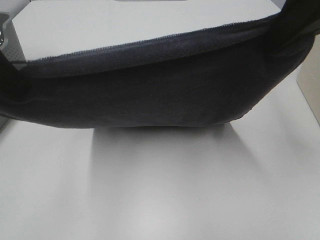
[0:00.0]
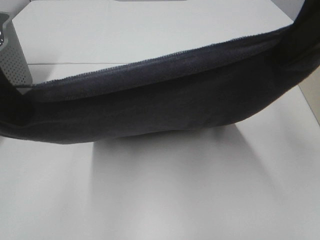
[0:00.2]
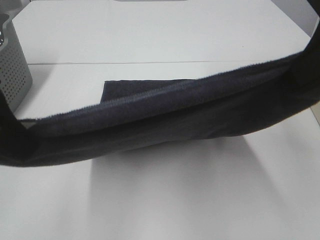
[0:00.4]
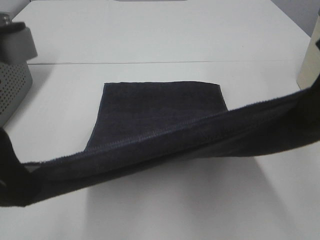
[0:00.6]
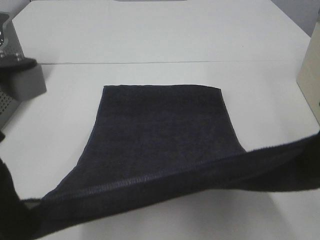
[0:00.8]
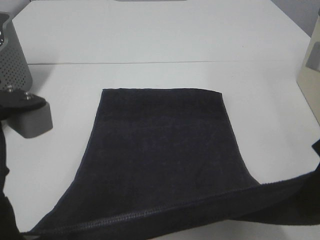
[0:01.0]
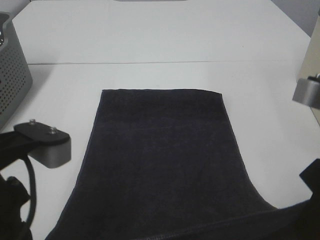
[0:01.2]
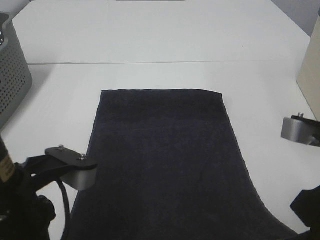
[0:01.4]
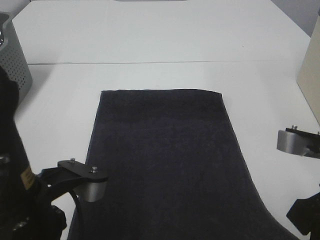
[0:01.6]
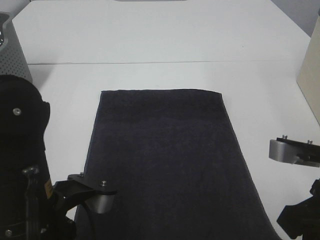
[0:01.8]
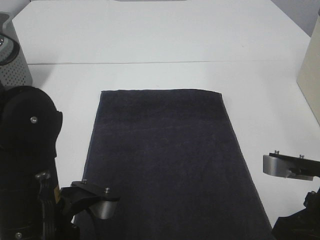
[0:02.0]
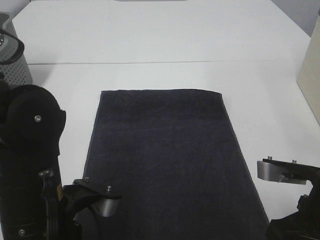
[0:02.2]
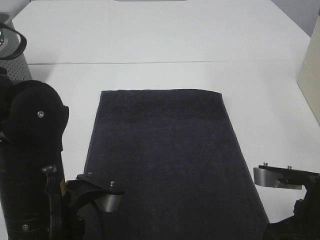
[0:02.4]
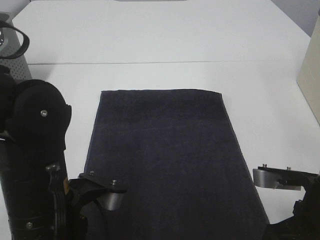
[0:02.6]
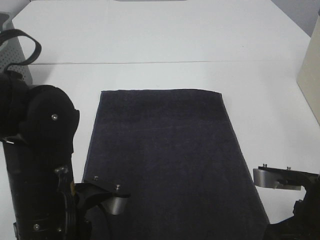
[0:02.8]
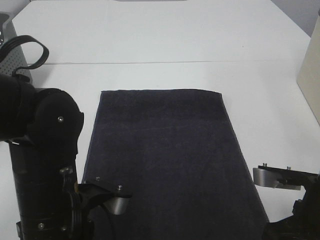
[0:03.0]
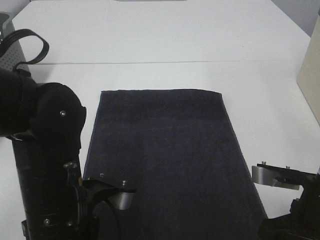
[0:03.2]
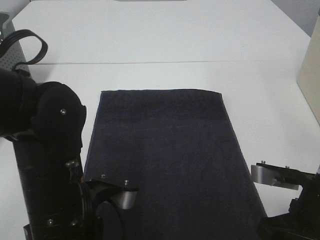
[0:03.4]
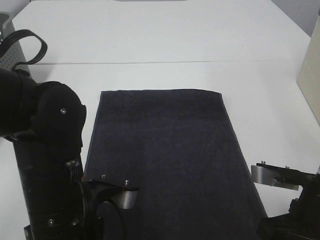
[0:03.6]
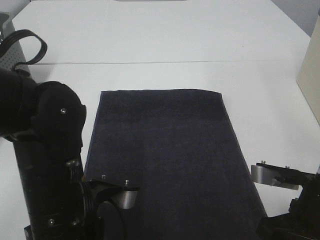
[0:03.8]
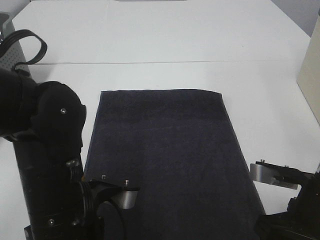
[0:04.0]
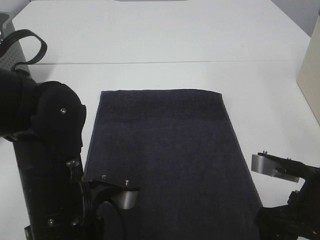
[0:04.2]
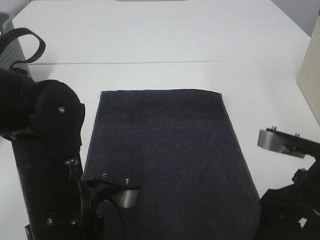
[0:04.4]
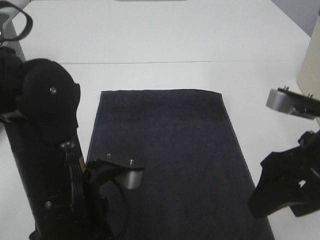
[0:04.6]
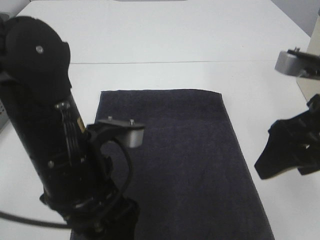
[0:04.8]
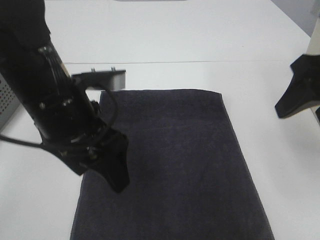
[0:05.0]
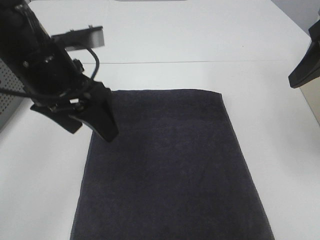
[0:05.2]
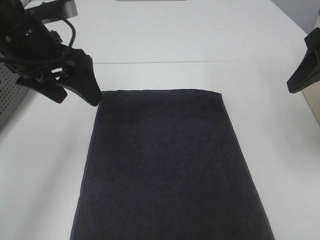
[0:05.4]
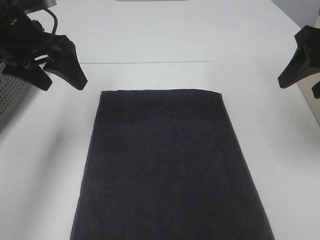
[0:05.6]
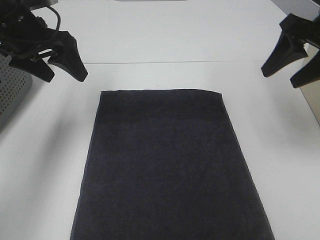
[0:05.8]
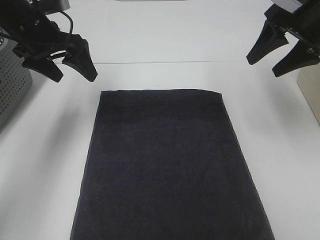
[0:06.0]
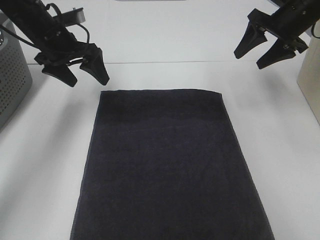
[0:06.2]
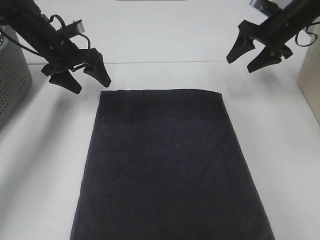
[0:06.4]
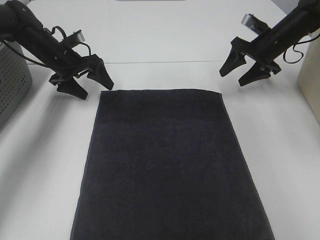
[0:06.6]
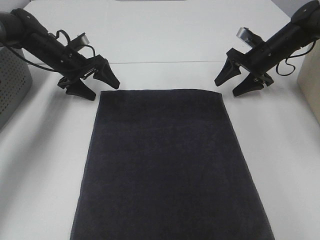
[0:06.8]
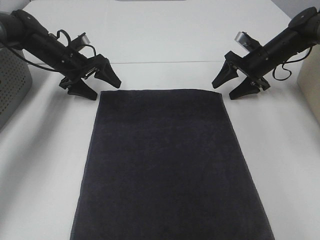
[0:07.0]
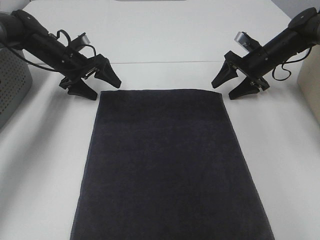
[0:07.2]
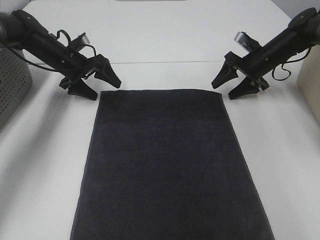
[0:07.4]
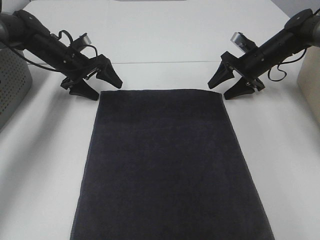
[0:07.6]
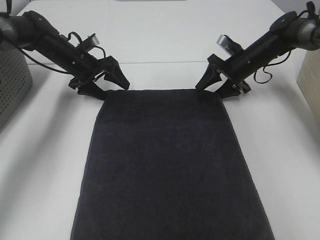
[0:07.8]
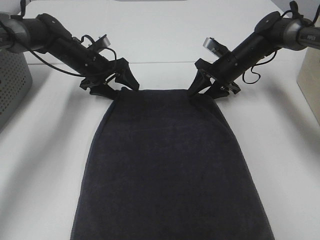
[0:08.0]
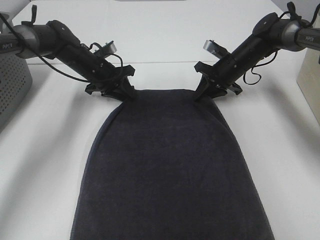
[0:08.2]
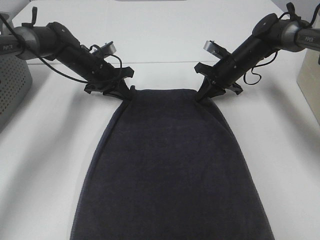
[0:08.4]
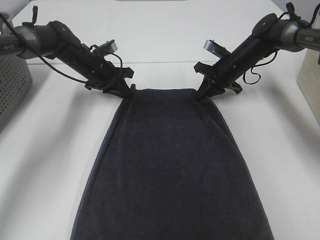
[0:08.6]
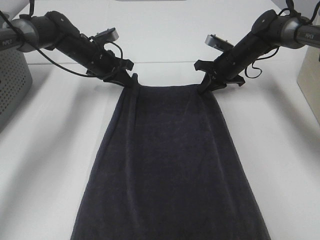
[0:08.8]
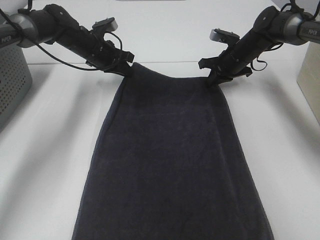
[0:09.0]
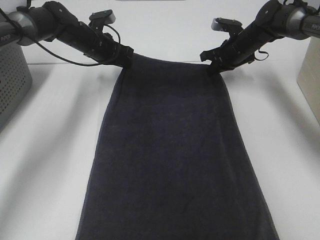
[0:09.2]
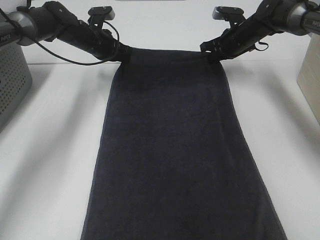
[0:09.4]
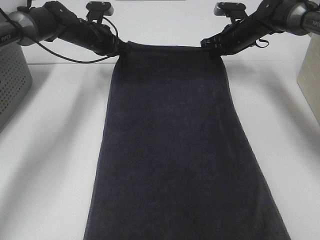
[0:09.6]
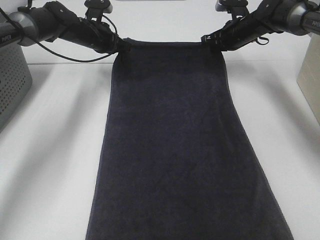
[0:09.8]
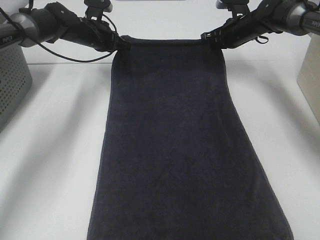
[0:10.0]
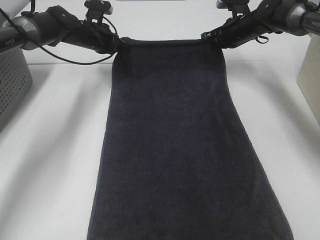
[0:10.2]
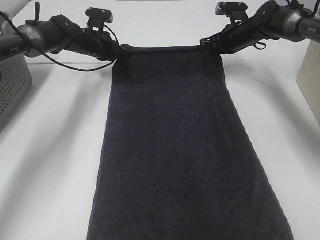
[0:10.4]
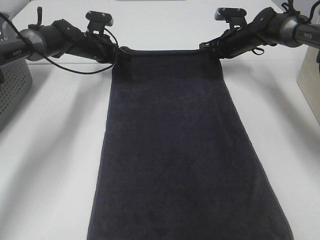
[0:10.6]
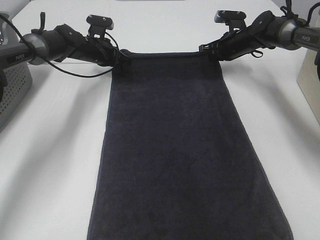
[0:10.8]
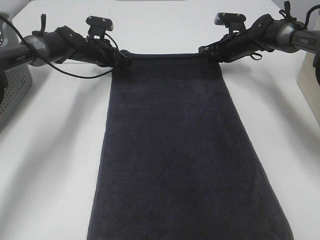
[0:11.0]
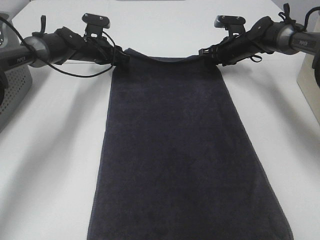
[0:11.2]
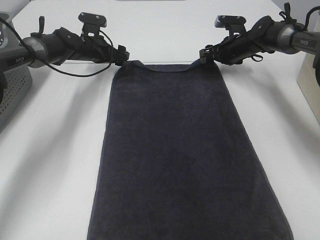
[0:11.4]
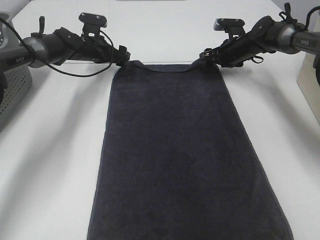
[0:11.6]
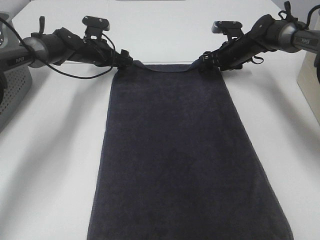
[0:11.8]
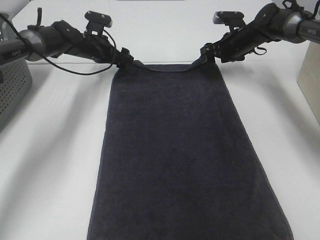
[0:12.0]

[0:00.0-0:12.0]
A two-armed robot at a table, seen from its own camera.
Task of the whole recording: Remove the towel and place it.
Step, 0:00.0 to 0:06.0: Left hand:adjust the gray towel.
Step, 0:00.0 to 0:06.0: Right hand:adjust the gray towel.
0:00.0 to 0:01.6: The right gripper is displaced downward and backward by approximately 20 cm; the left gripper moves downward, roughly 15 cm.
0:01.6 to 0:03.0: The right gripper moves downward, about 5 cm. The left gripper shifts by approximately 5 cm.
0:03.0 to 0:04.4: The left gripper opens up, while the right gripper opens.
0:04.4 to 0:06.0: The right gripper shifts some 25 cm forward. The left gripper is displaced forward and to the left by roughly 30 cm.
0:06.0 to 0:07.6: The two grippers go approximately 20 cm downward and forward.
0:07.6 to 0:09.0: The right gripper changes place by roughly 5 cm, and closes its fingers. The left gripper shifts some 5 cm to the right, and closes its fingers.
0:10.4 to 0:12.0: The left gripper opens. Meanwhile the right gripper opens its fingers.

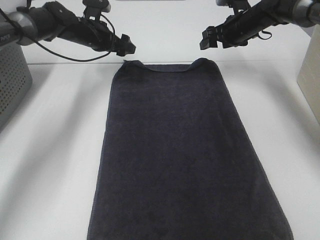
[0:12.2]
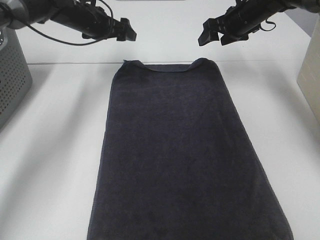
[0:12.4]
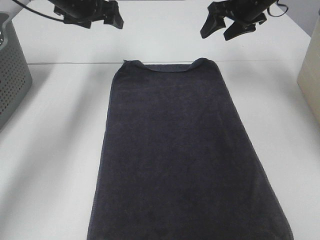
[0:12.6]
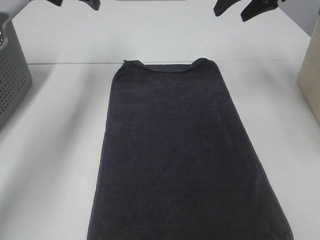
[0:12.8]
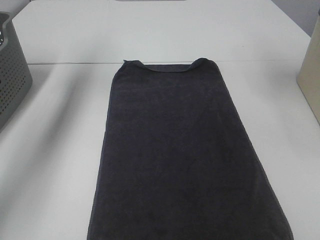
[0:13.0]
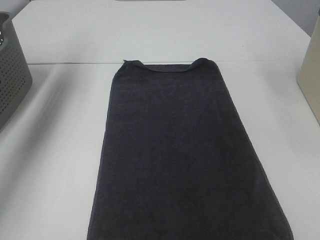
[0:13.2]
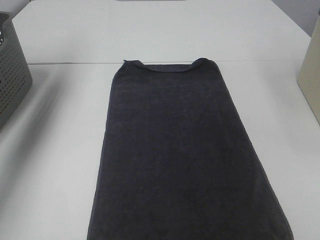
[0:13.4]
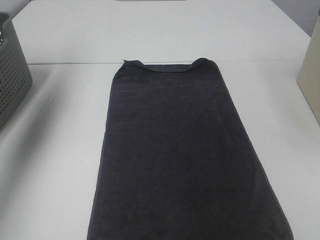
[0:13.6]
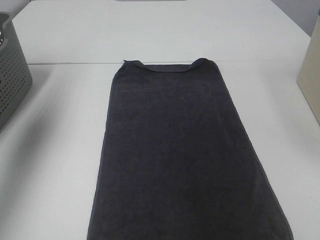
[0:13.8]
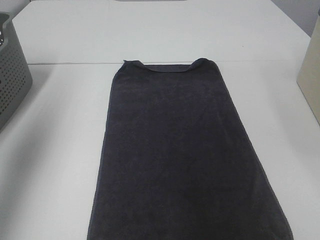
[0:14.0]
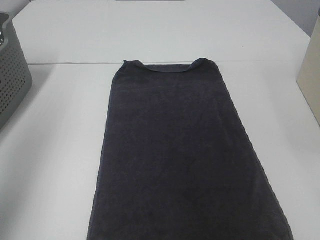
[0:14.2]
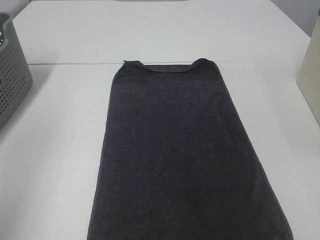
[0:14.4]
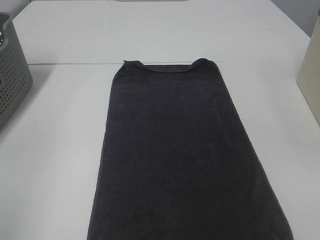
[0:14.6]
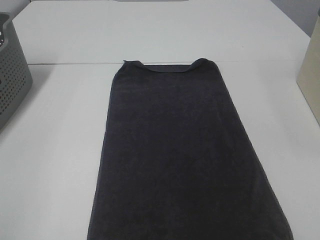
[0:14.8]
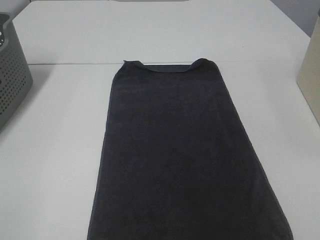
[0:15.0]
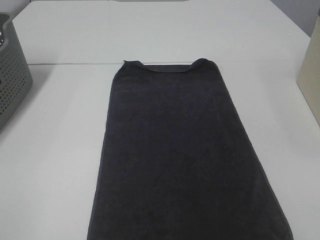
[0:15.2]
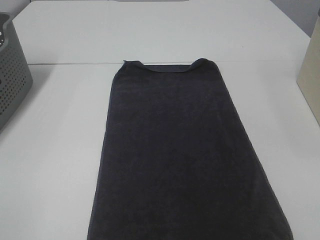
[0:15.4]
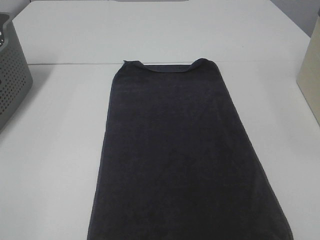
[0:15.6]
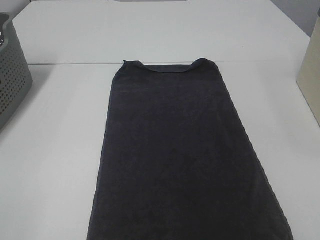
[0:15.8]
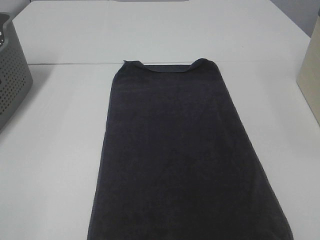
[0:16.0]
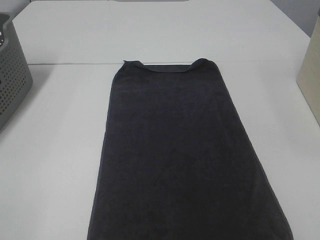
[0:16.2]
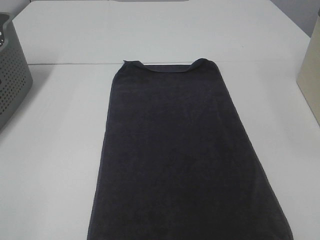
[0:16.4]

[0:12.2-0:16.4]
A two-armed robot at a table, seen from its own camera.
Task of the whole recording: Remove the towel and place it.
0:12.2 to 0:13.6: The left gripper travels upward, backward and to the left by about 35 cm, while the right gripper is displaced upward and backward by roughly 35 cm.
0:13.6 to 0:15.0: The left gripper is displaced backward by approximately 40 cm.

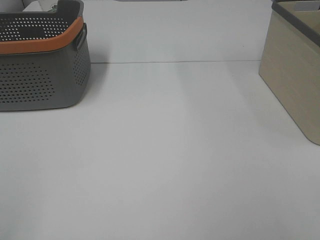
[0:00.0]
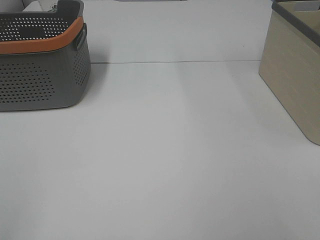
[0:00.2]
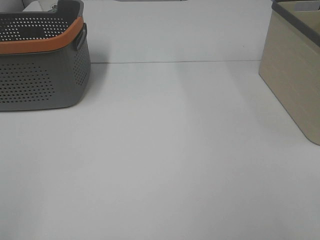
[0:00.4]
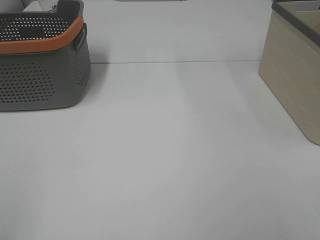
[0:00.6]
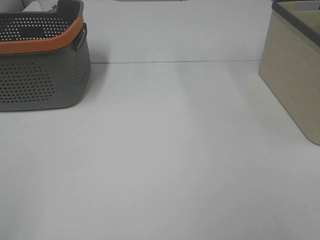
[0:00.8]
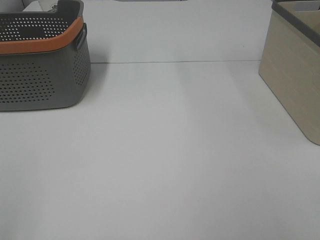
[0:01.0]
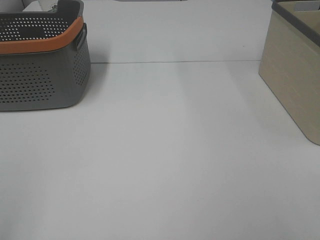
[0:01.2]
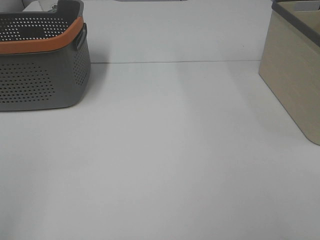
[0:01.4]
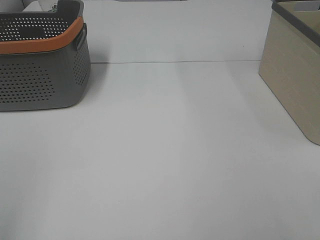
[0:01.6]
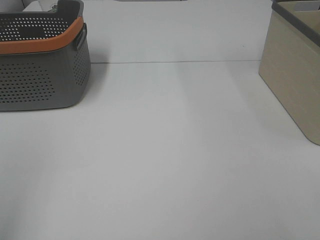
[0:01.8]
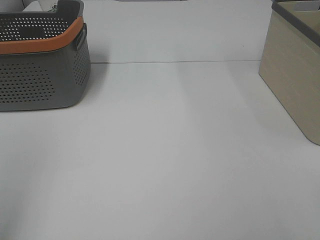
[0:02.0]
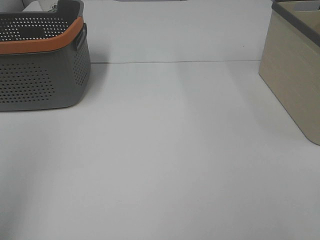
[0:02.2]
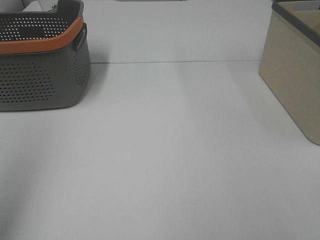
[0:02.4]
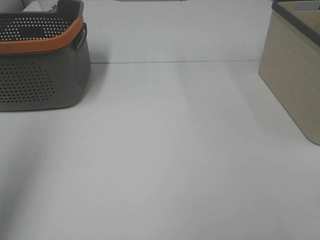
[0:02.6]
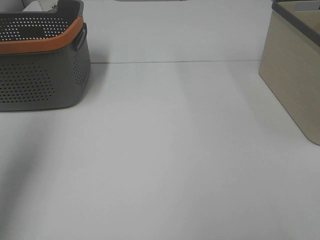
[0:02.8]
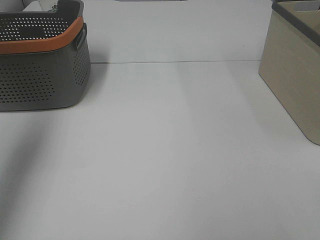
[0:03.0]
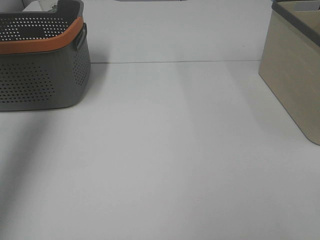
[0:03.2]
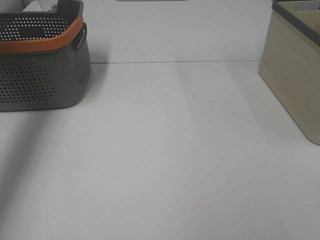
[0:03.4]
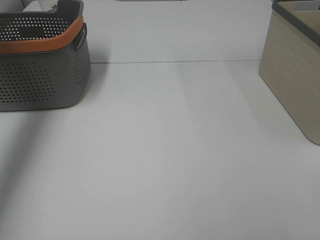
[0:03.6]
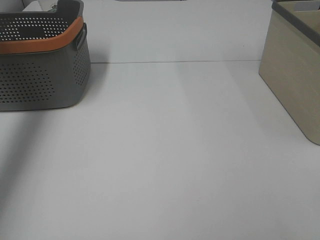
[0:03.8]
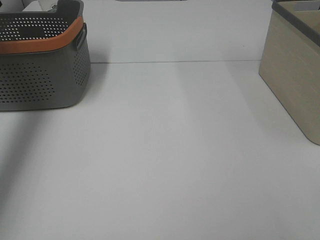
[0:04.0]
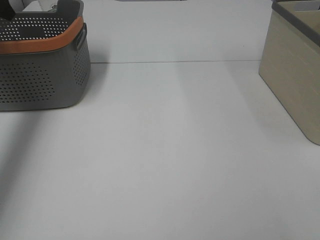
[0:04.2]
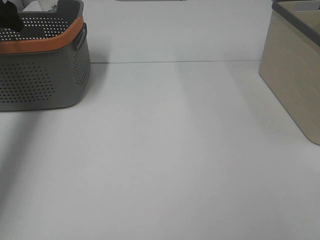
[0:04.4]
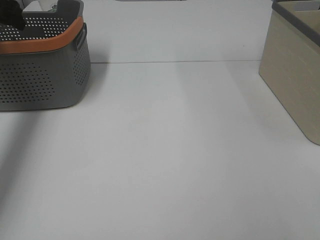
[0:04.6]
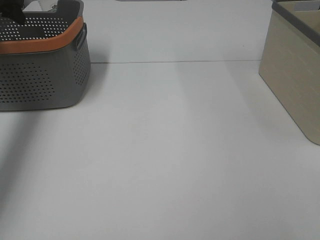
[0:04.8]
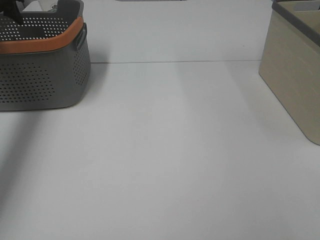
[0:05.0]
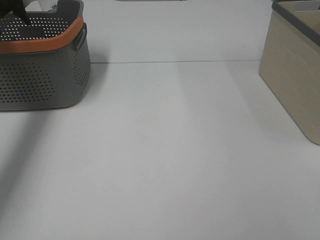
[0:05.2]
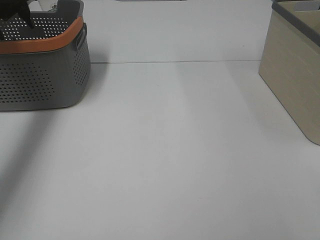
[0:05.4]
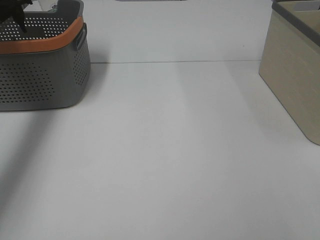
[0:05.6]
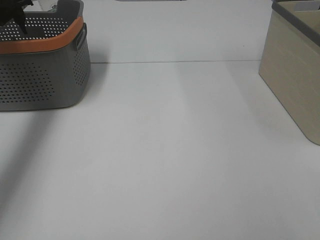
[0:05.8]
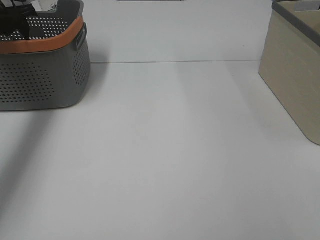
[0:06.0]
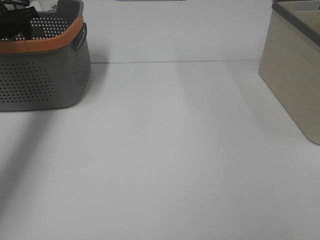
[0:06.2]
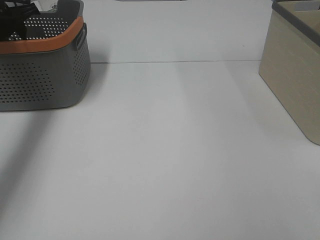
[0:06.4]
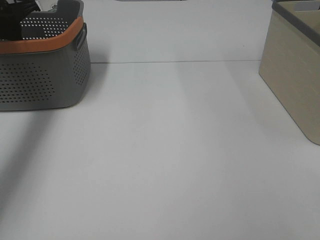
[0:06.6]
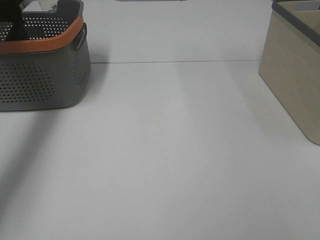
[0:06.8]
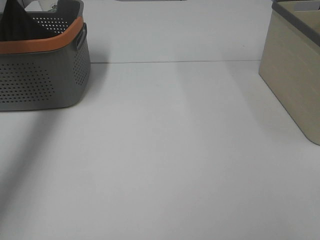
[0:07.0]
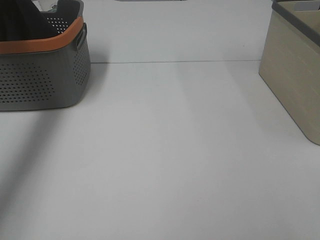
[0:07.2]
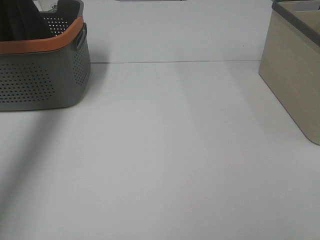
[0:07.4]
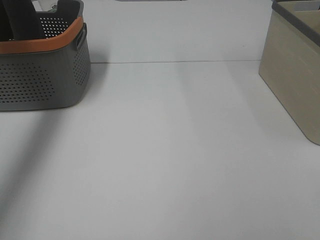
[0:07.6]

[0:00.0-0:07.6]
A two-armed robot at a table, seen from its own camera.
Task of the whole recording: Remove the towel and place it.
0:01.6 to 0:03.0: The left gripper moves forward, roughly 25 cm.
0:03.0 to 0:04.6: The left gripper is displaced forward and downward by about 25 cm.
0:06.0 to 0:07.6: The left gripper is displaced upward by about 20 cm, and closes.
